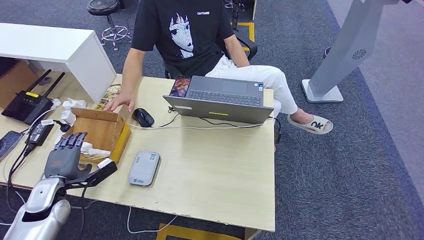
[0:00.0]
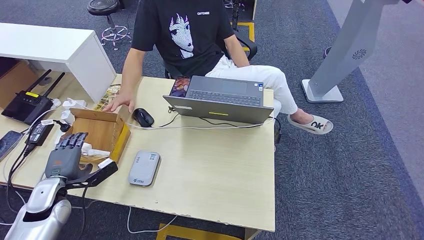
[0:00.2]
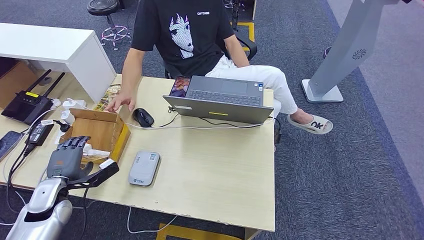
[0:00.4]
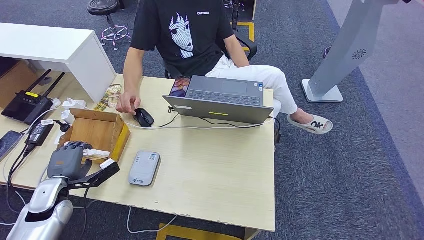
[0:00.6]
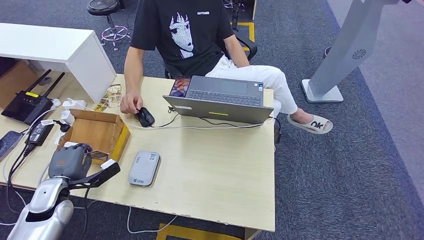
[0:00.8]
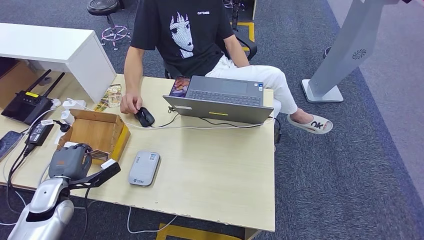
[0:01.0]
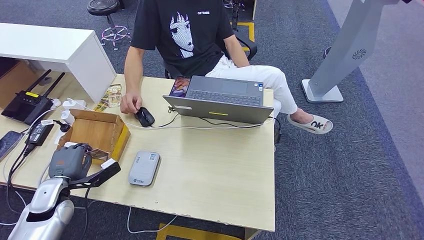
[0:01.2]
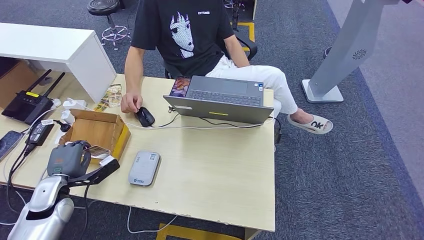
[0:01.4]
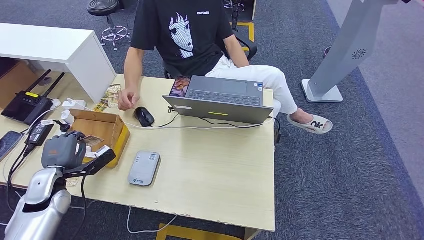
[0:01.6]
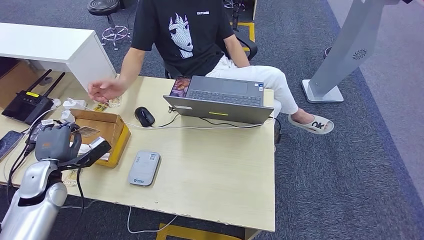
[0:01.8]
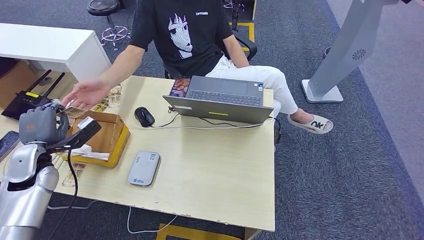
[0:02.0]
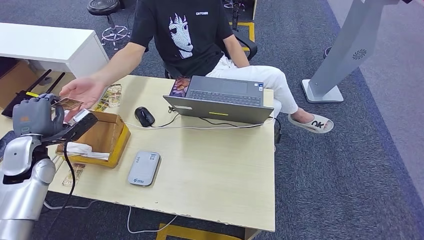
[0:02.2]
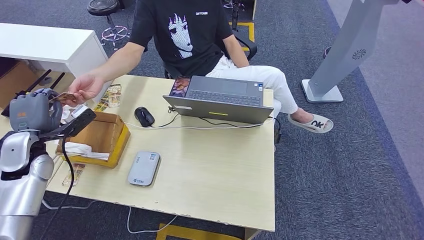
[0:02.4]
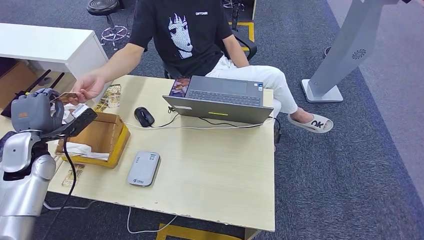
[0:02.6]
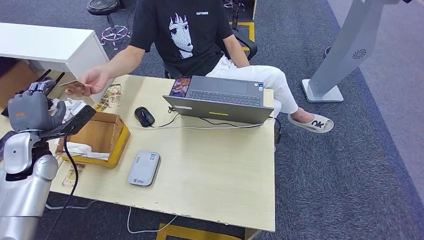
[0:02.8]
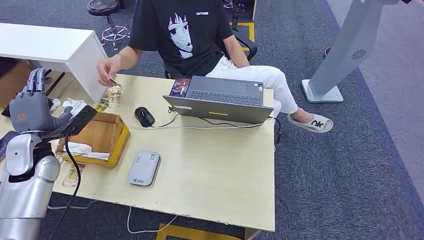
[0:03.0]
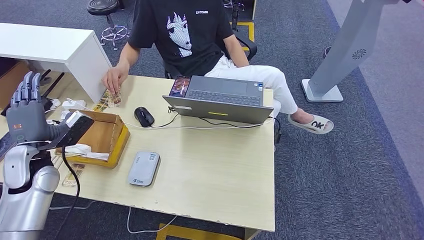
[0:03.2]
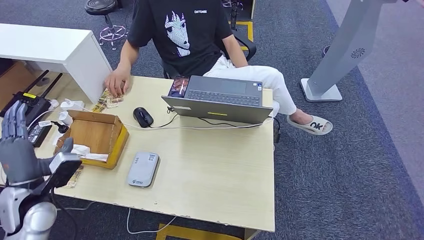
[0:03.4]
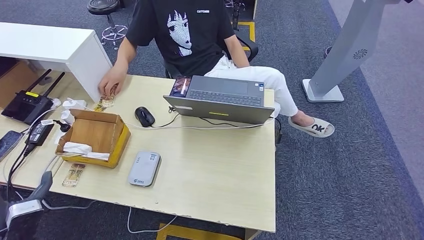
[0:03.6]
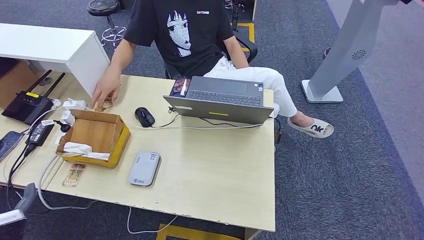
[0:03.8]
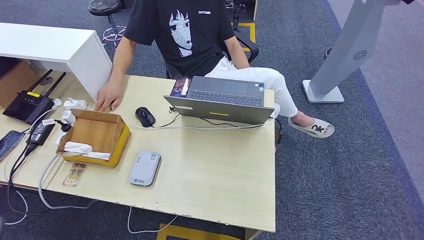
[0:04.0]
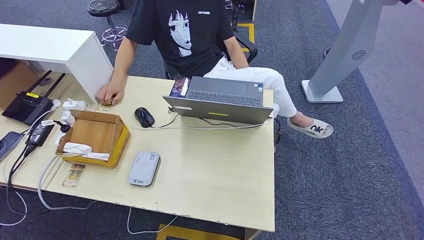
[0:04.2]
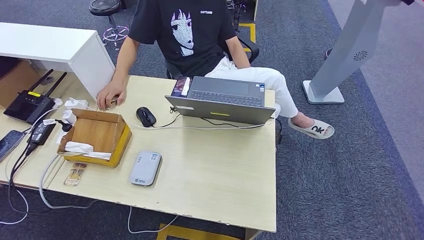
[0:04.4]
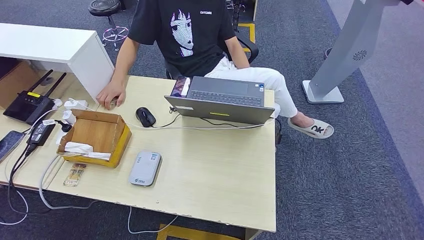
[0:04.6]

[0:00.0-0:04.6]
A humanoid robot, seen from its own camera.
Step, 0:02.0 to 0:04.6: Hand the room key to the person.
0:00.0 to 0:01.6: The hands stay close to where they were, moving slightly.
0:01.6 to 0:03.0: The left hand goes approximately 10 cm upward and forward.
0:03.0 to 0:04.6: The left hand shifts roughly 40 cm backward and downward.

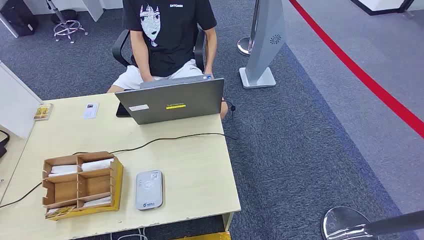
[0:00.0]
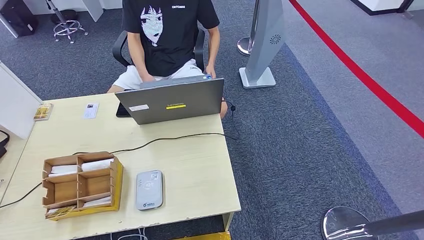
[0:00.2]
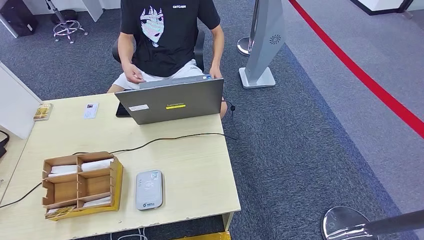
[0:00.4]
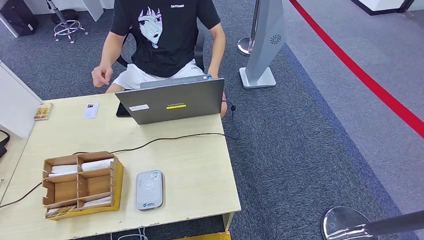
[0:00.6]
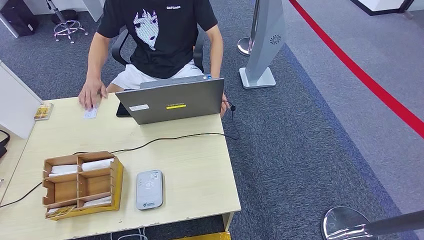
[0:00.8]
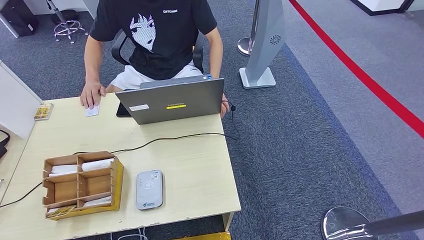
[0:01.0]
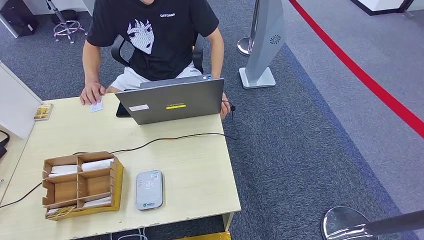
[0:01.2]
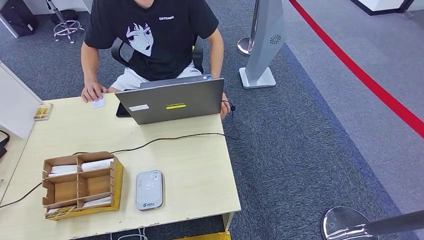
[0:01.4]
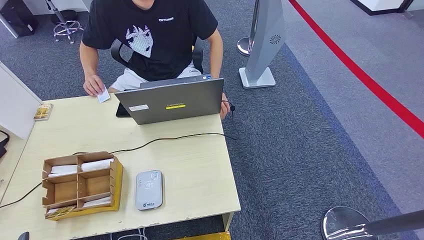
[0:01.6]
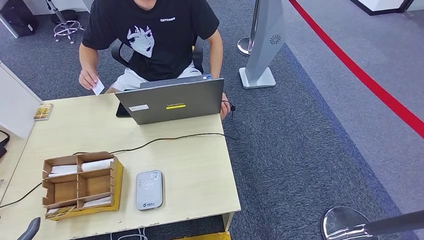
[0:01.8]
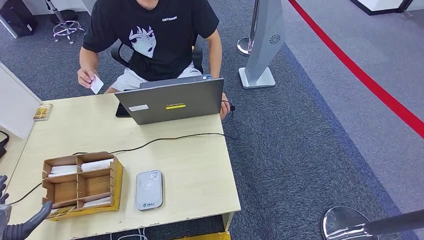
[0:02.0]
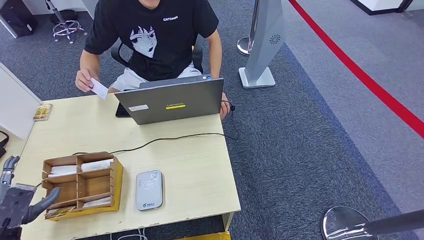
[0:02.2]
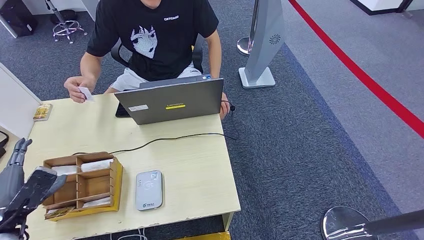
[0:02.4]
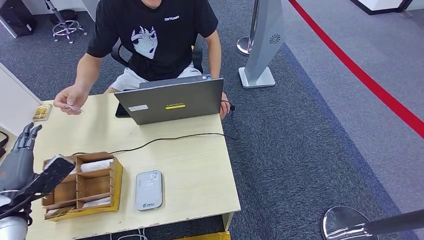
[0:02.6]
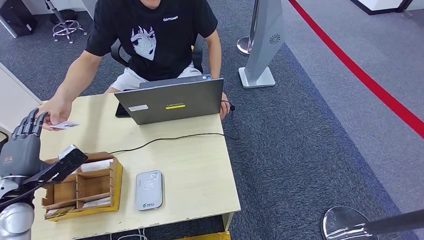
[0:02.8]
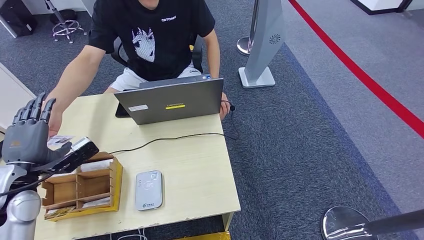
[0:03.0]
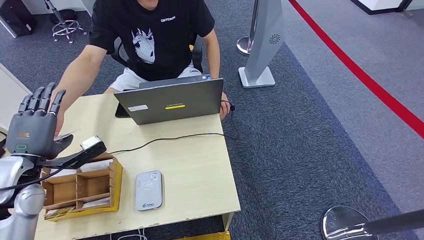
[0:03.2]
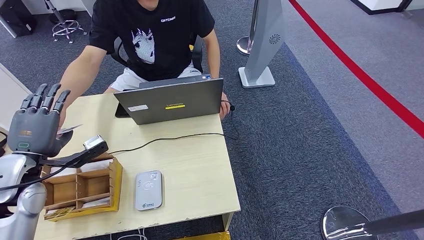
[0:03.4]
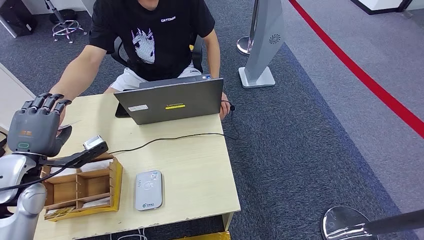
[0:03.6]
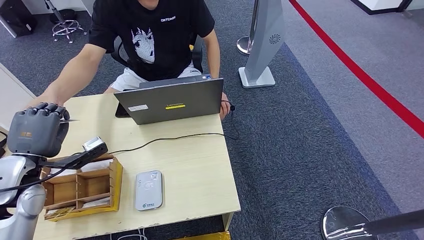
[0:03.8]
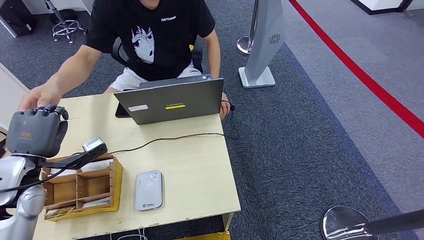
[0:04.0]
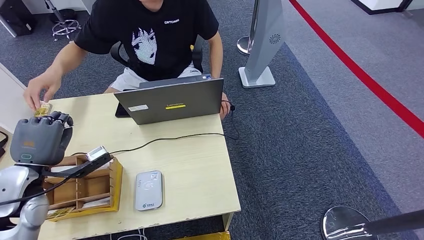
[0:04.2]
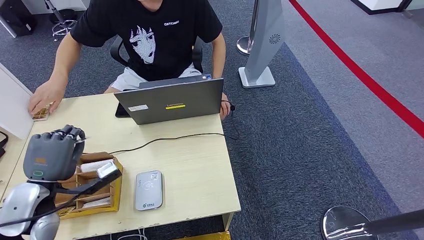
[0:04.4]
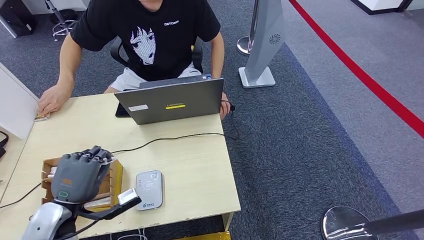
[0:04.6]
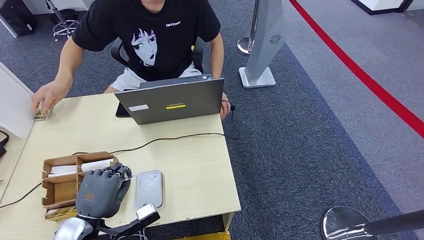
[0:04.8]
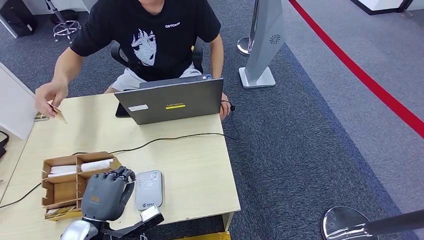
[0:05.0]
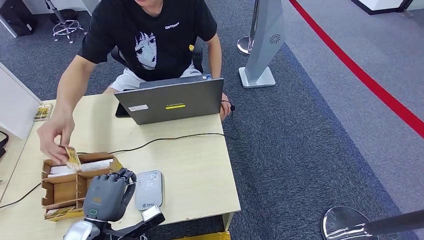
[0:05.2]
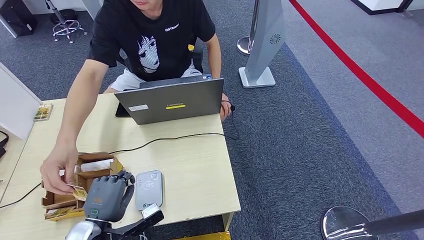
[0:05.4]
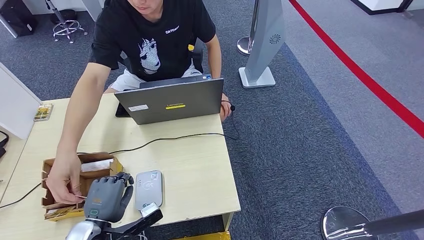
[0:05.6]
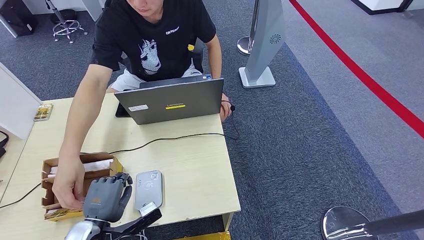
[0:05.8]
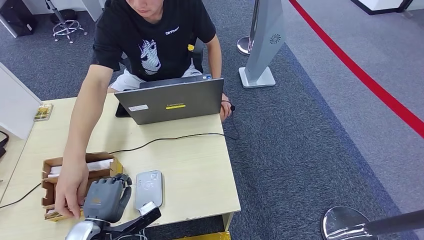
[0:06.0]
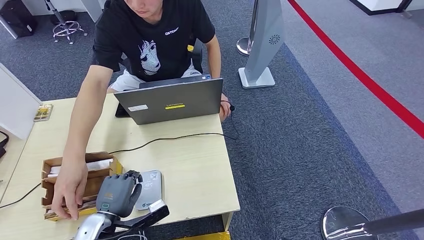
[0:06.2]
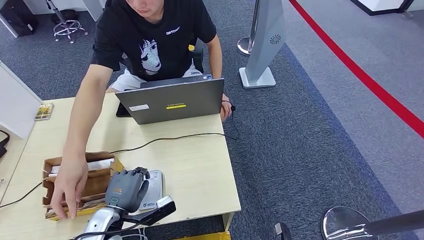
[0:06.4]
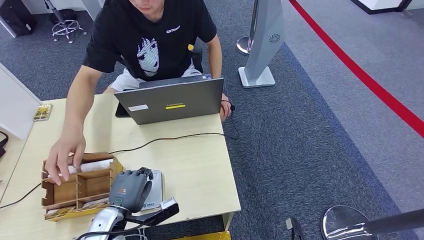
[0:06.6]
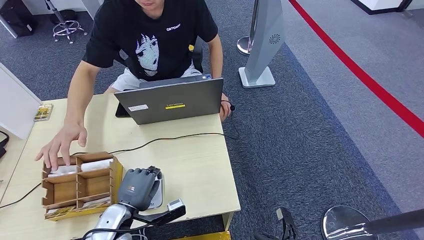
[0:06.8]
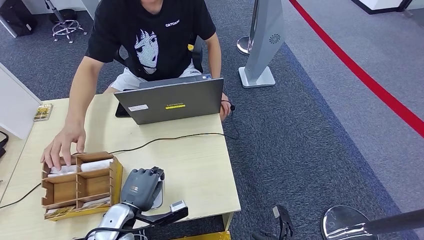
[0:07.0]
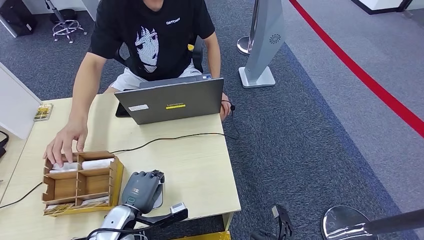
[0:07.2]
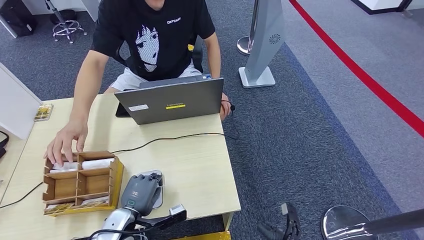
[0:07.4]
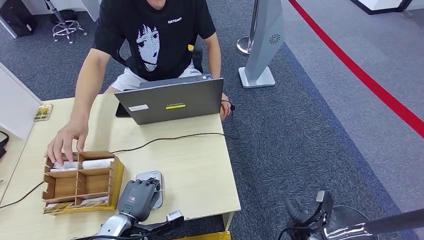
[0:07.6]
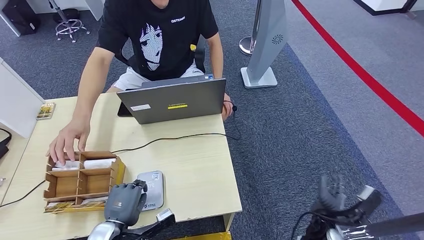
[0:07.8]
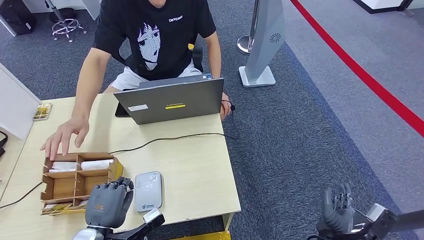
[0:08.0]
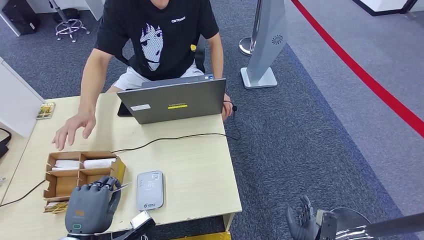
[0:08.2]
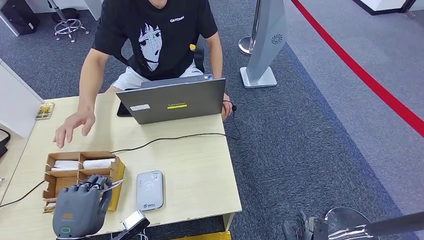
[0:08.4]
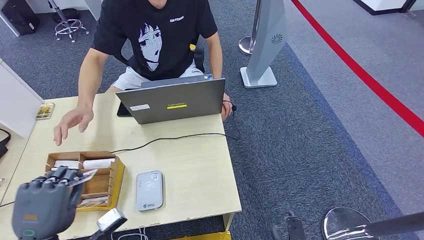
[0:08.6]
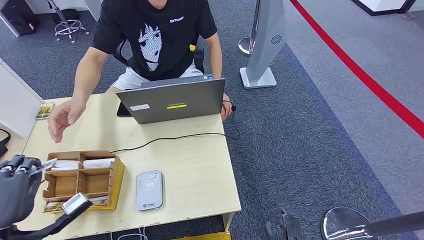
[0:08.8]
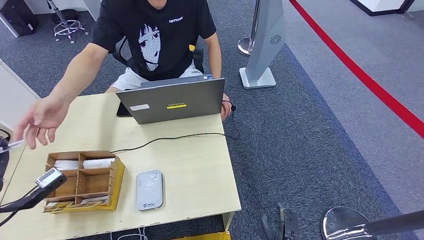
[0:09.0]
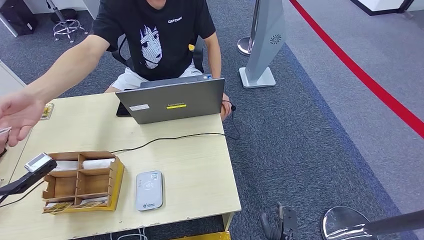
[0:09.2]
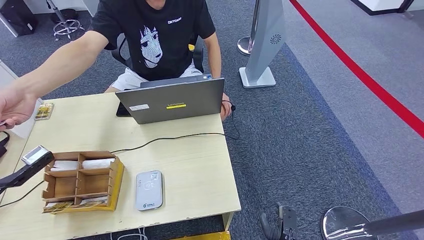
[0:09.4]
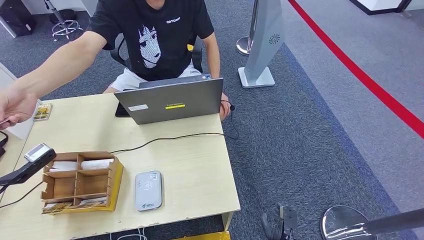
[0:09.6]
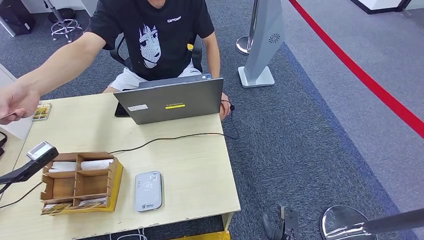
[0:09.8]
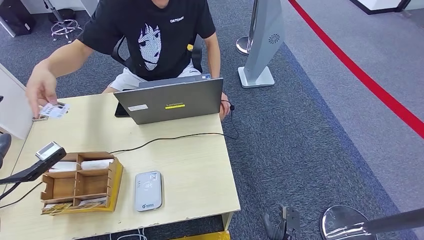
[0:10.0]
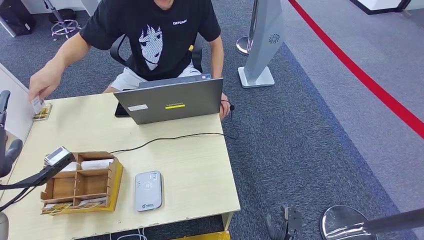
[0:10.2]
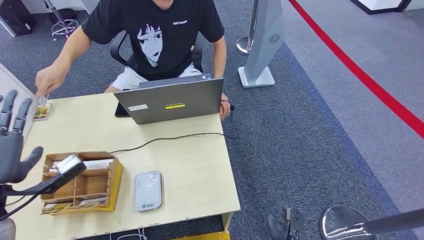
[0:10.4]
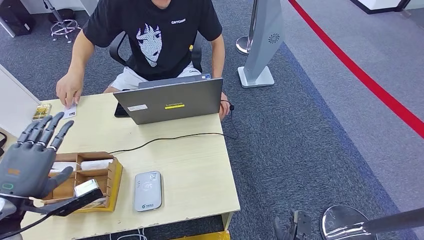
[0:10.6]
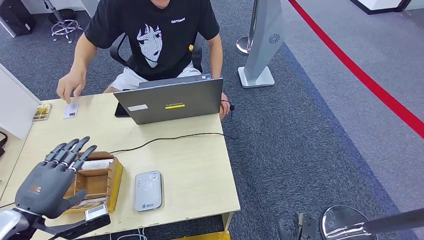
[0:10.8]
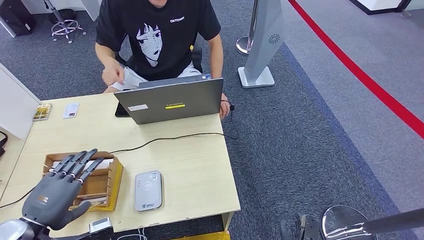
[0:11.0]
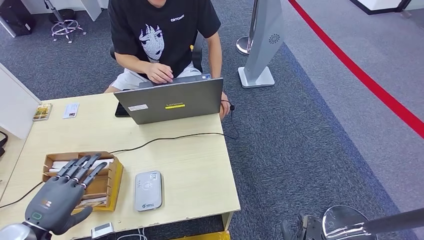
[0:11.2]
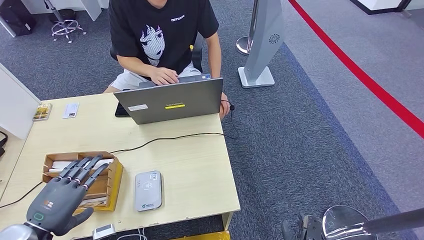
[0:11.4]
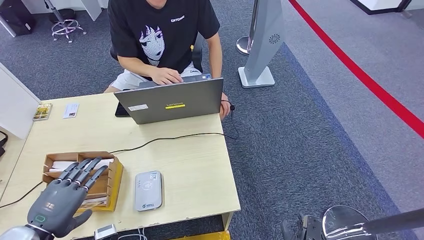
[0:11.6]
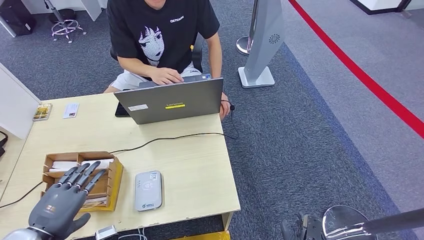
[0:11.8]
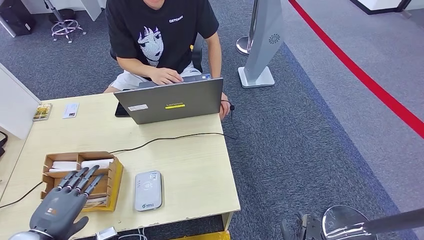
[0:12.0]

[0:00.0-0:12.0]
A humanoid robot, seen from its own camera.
Step, 0:00.0 to 0:03.6: Take the ID card from the person's hand.
Step, 0:03.8 to 0:07.8: Place the ID card on the card reader.
Step, 0:08.0 to 0:10.6: Hand the ID card to the person.
0:01.6 to 0:03.0: The left hand heads forward and upward, covering about 25 cm.
0:03.0 to 0:04.4: The left hand moves about 5 cm.
0:04.4 to 0:06.0: The left hand goes roughly 15 cm downward, to the right and backward.
0:06.0 to 0:07.6: The right hand heads forward and upward, covering some 20 cm; the left hand shifts some 5 cm downward.
0:07.6 to 0:09.0: The right hand shifts about 10 cm downward and backward; the left hand goes roughly 25 cm to the left and upward.
0:09.0 to 0:10.4: There are only small adjustments of the hands.
0:10.4 to 0:12.0: The left hand shifts approximately 10 cm downward and backward.
